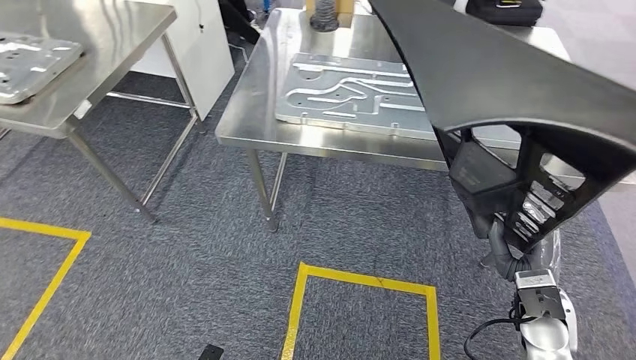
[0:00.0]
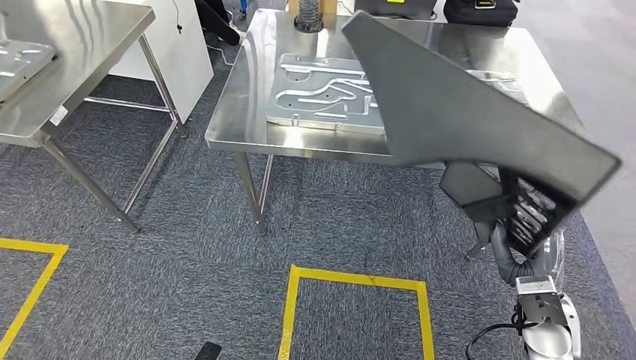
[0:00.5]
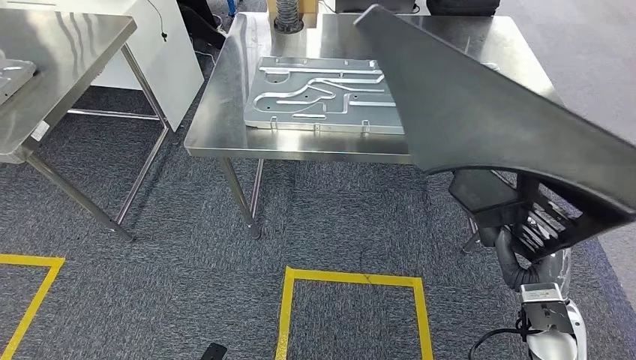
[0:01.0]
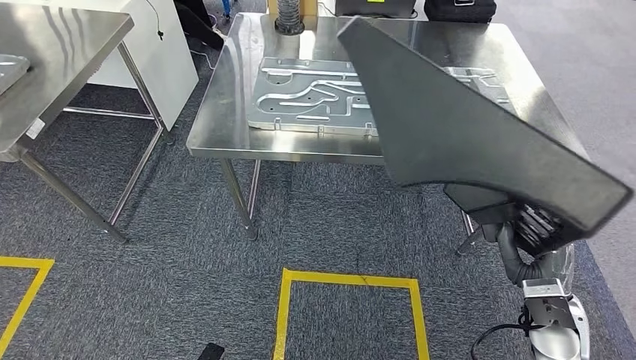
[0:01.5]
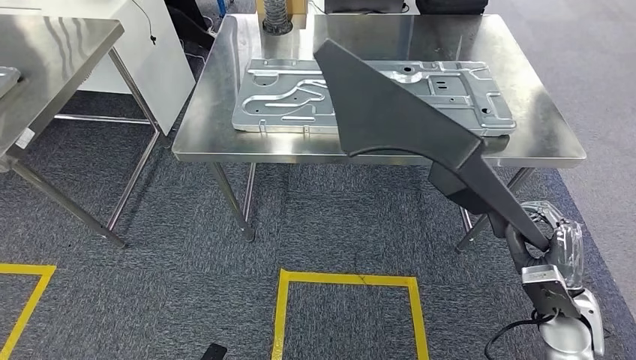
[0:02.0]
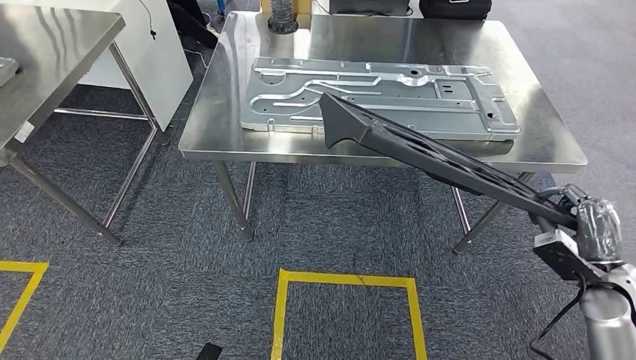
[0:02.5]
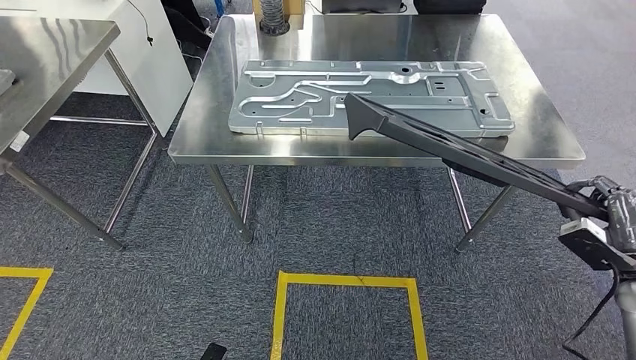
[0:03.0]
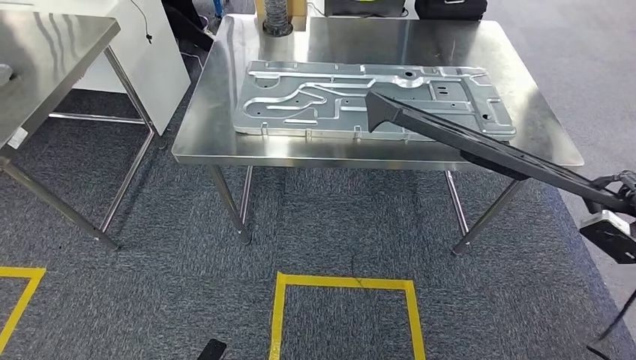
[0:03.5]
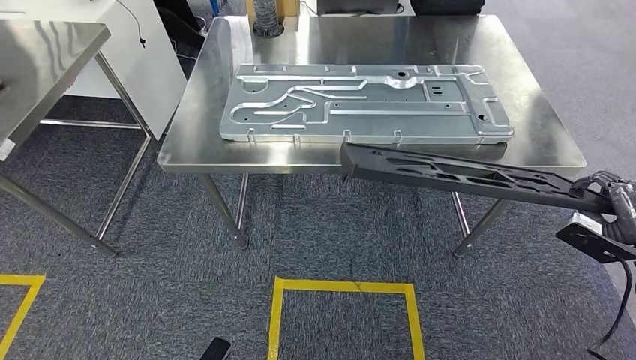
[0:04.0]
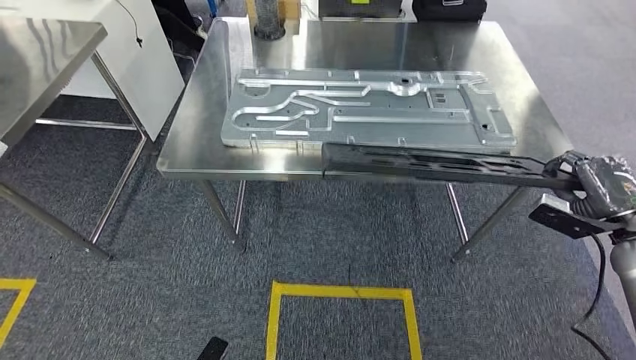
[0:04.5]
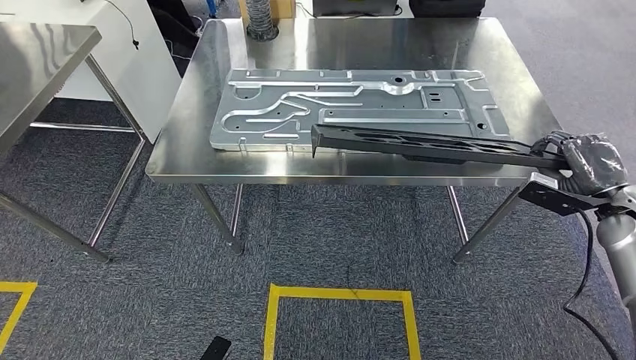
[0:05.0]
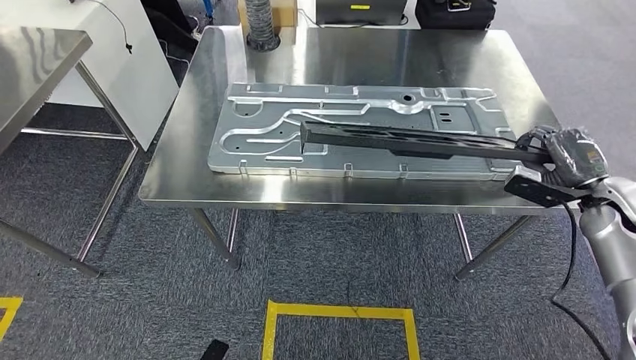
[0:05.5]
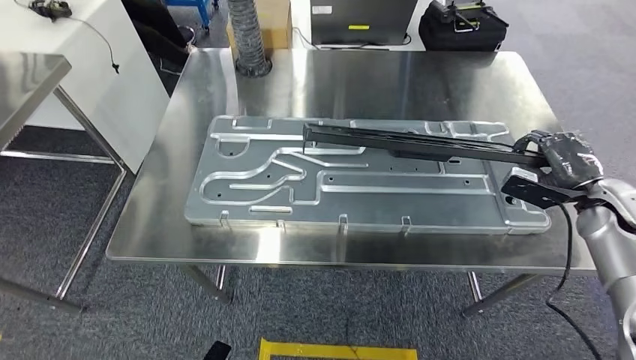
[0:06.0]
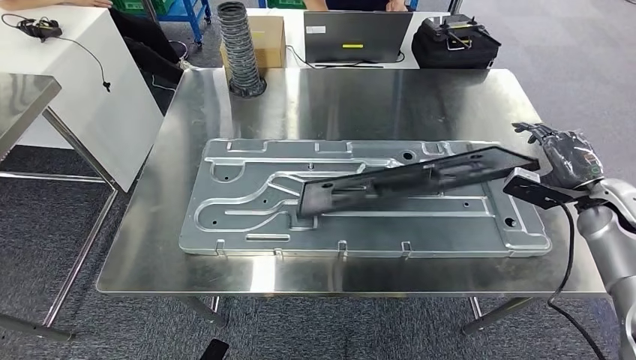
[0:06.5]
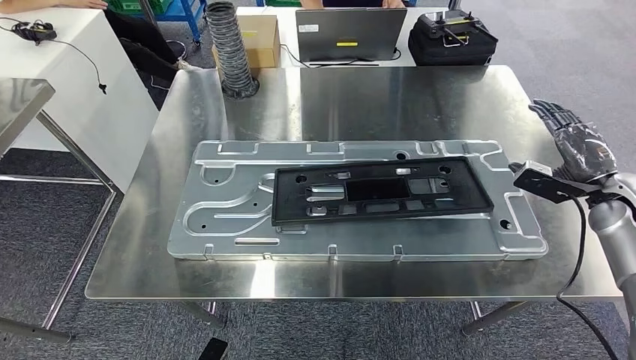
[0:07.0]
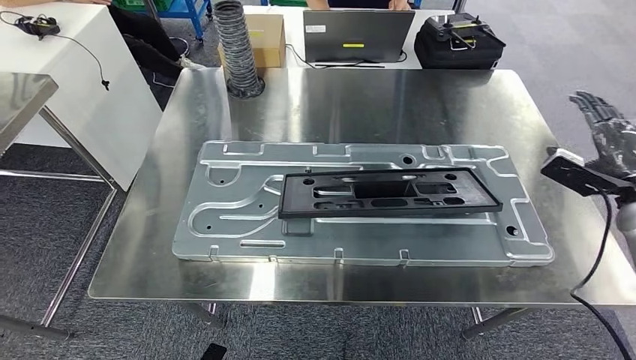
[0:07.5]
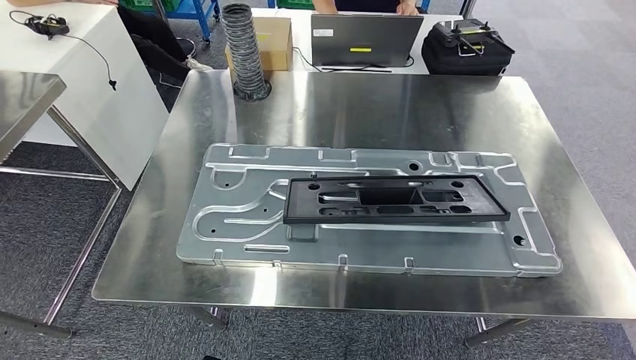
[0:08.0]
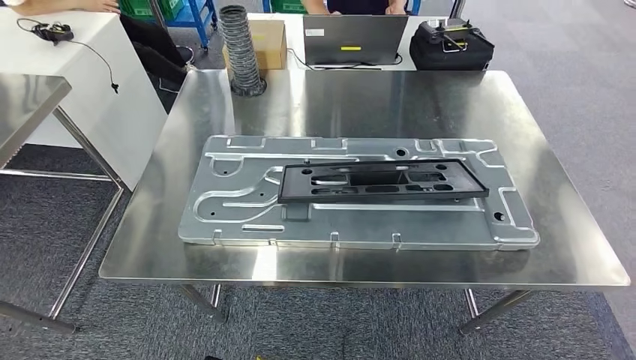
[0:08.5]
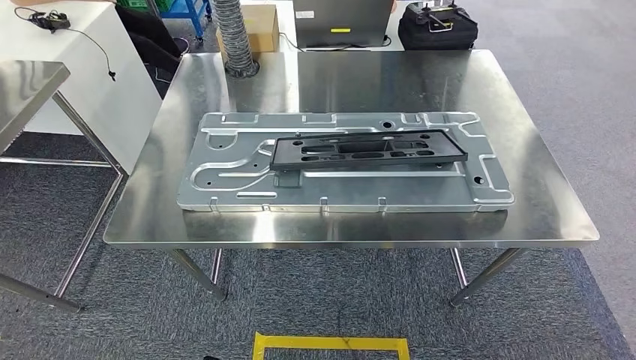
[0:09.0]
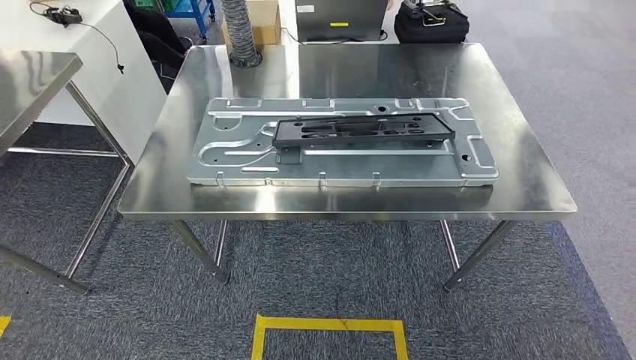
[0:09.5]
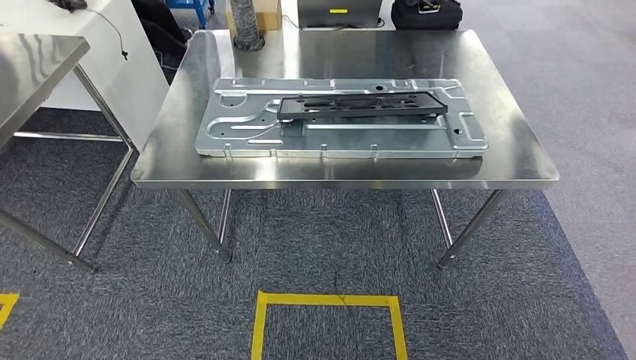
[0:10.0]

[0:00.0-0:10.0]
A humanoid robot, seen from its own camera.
Step, 0:00.0 to 0:05.5: Move the large material to the workbench.
Step, 0:06.0 to 0:09.0: Insert the large material into the corresponding slot on the workbench.

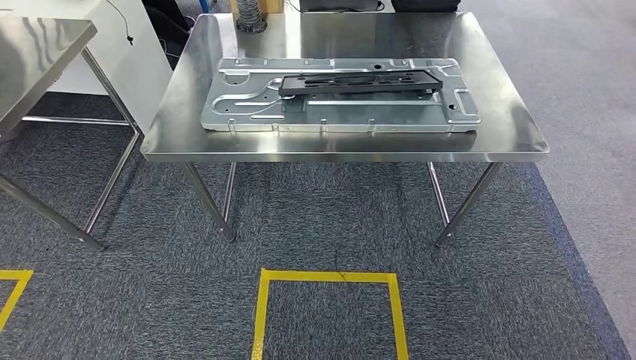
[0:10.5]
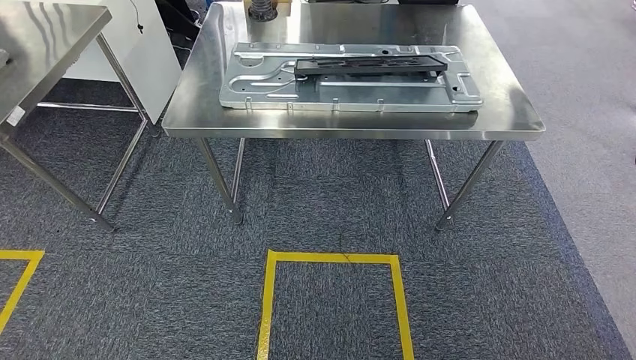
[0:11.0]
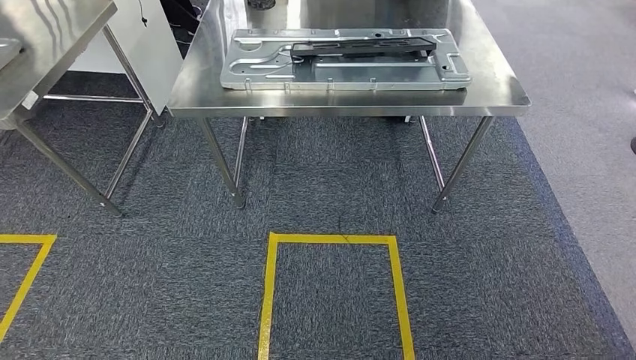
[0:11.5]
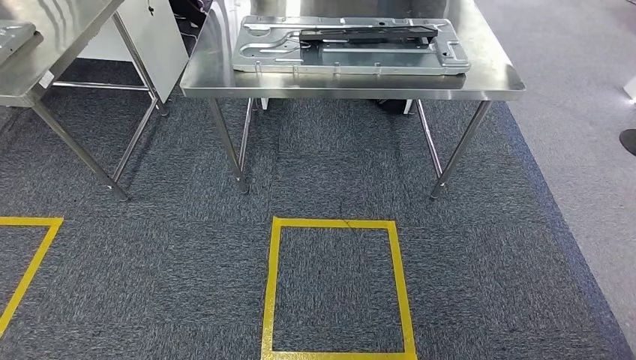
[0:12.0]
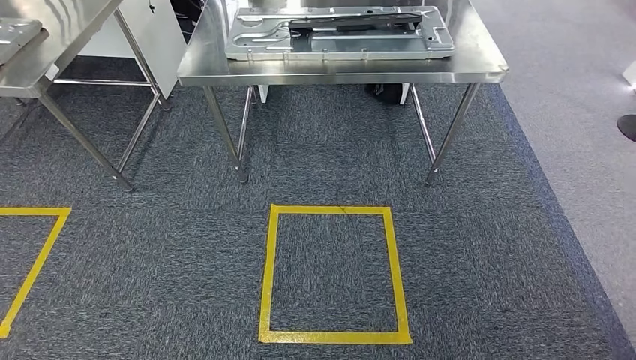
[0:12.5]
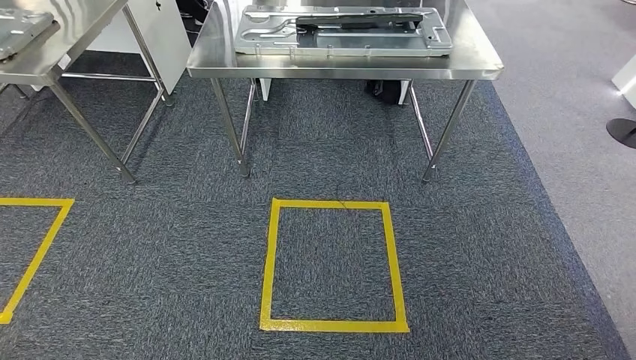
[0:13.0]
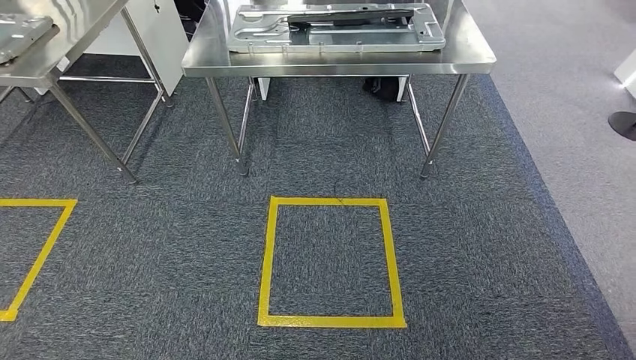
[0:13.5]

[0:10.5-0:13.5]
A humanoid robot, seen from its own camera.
Step, 0:10.5 to 0:13.5: Move to the initial position of the shelf.
